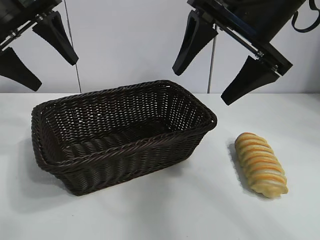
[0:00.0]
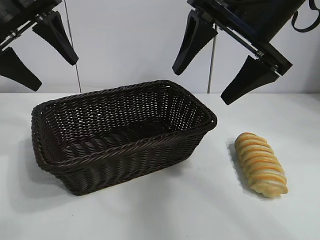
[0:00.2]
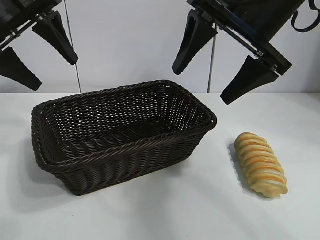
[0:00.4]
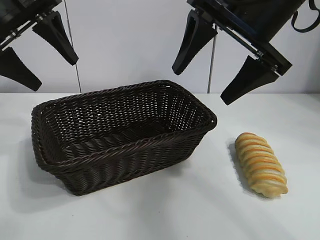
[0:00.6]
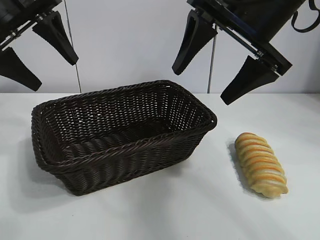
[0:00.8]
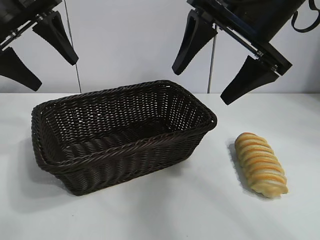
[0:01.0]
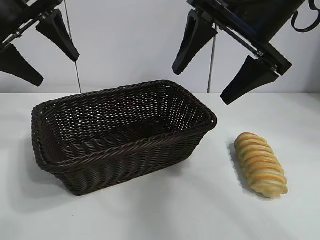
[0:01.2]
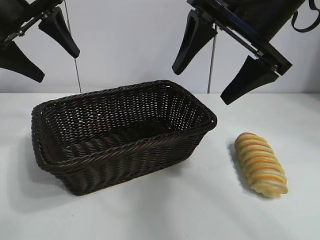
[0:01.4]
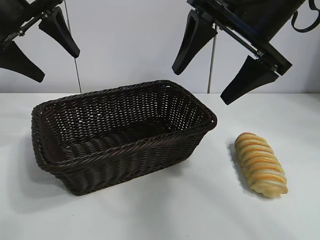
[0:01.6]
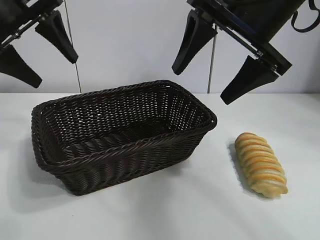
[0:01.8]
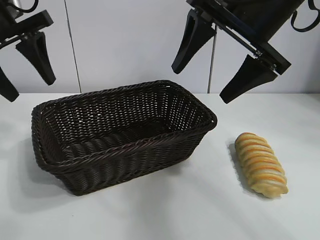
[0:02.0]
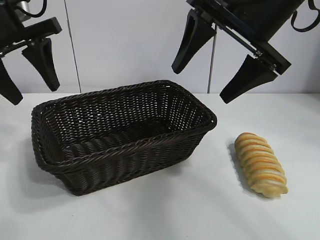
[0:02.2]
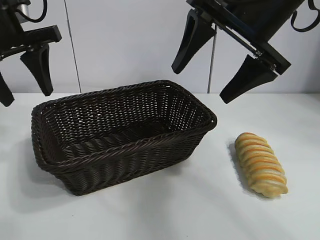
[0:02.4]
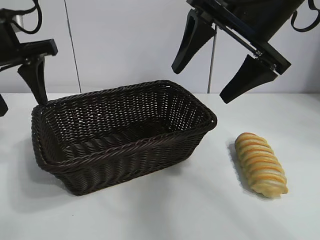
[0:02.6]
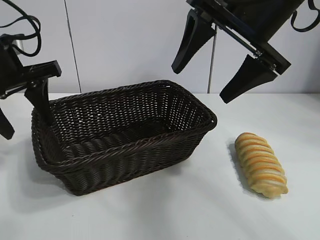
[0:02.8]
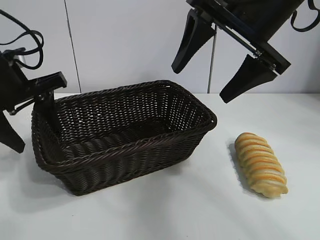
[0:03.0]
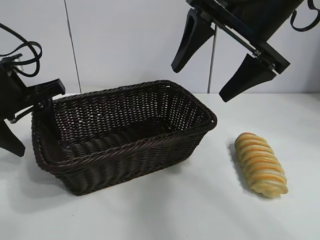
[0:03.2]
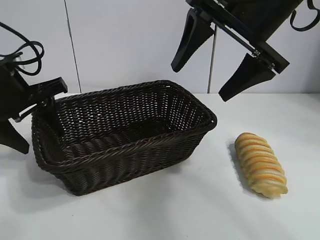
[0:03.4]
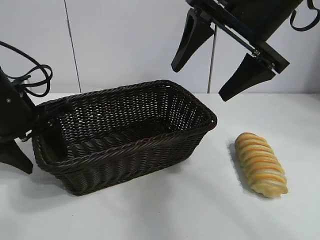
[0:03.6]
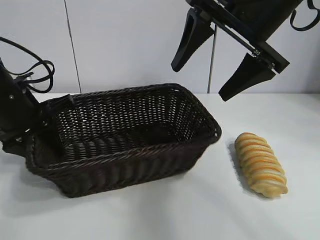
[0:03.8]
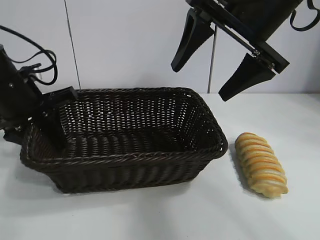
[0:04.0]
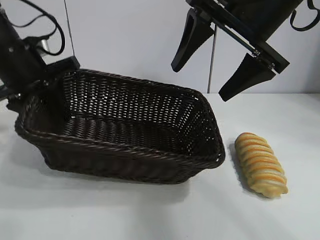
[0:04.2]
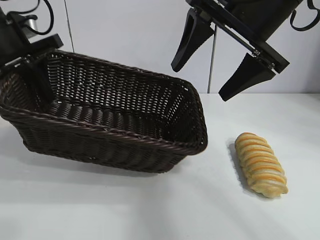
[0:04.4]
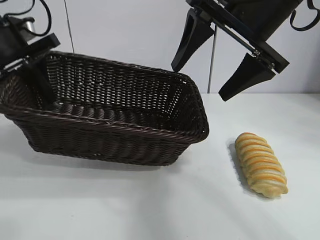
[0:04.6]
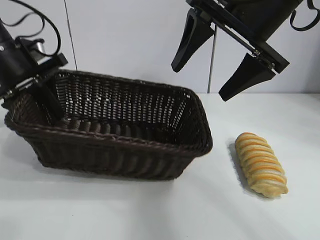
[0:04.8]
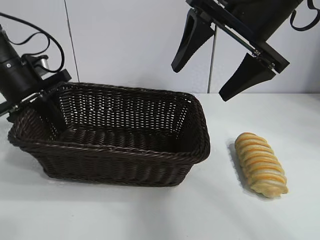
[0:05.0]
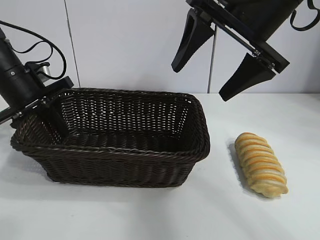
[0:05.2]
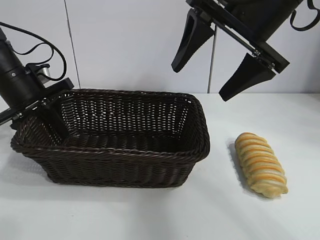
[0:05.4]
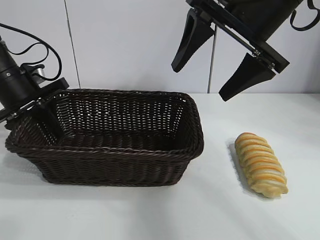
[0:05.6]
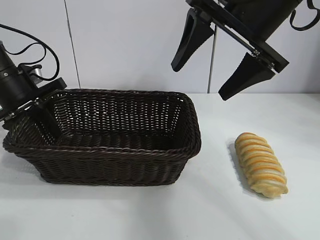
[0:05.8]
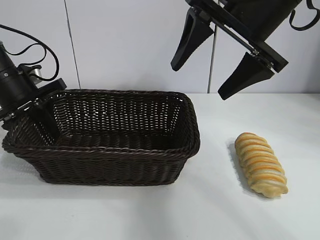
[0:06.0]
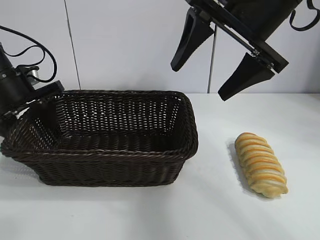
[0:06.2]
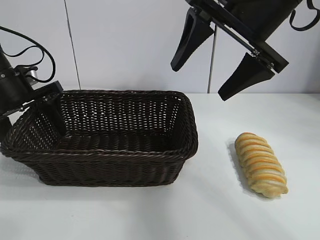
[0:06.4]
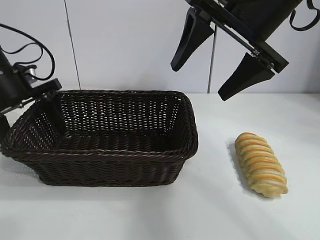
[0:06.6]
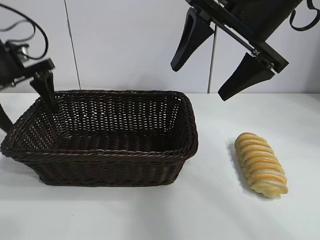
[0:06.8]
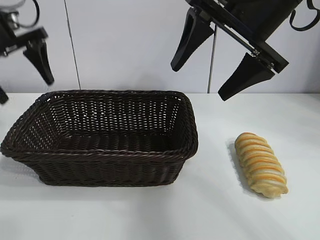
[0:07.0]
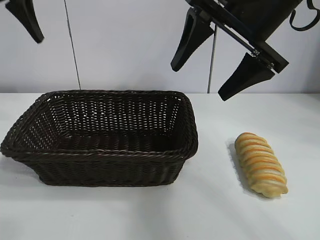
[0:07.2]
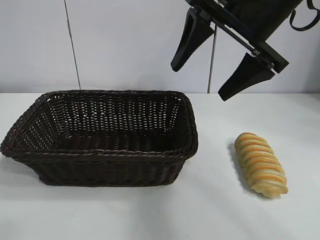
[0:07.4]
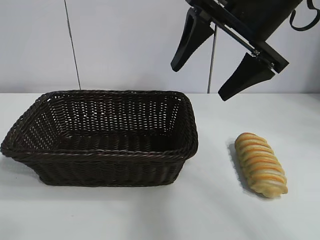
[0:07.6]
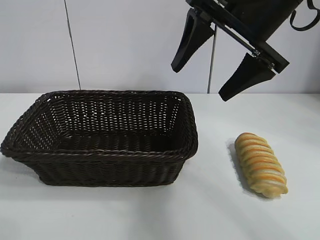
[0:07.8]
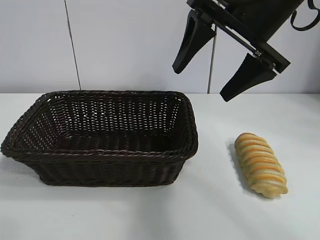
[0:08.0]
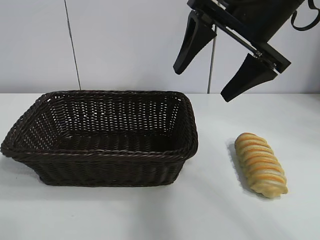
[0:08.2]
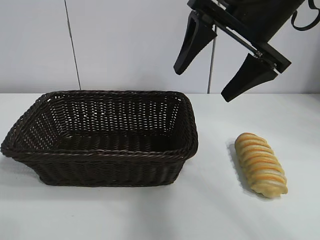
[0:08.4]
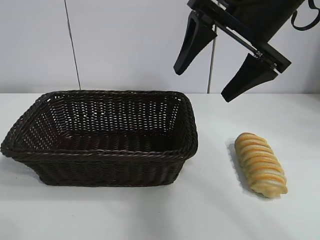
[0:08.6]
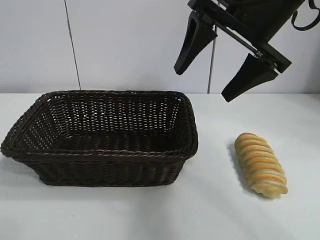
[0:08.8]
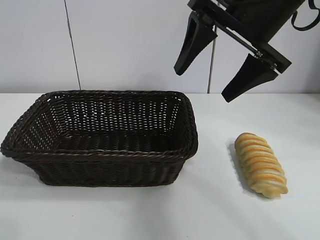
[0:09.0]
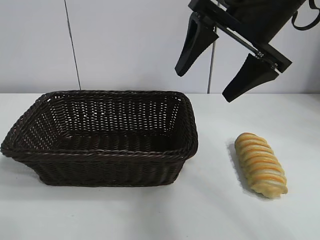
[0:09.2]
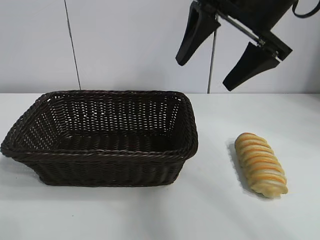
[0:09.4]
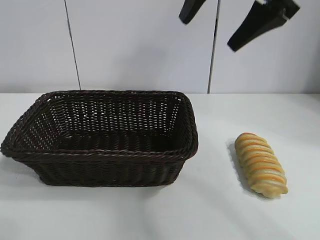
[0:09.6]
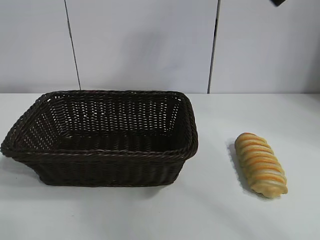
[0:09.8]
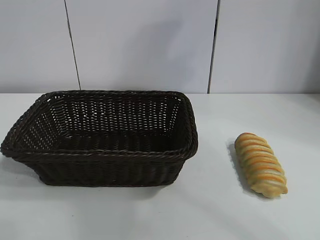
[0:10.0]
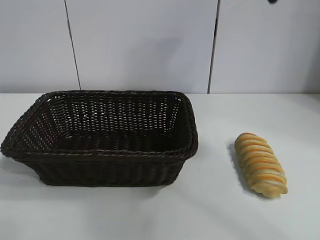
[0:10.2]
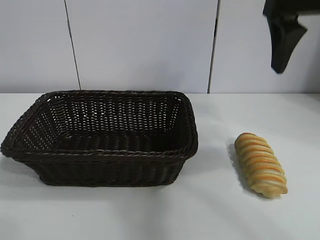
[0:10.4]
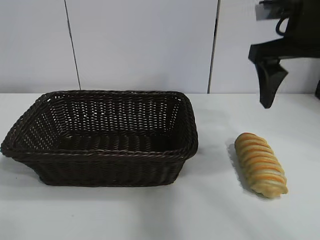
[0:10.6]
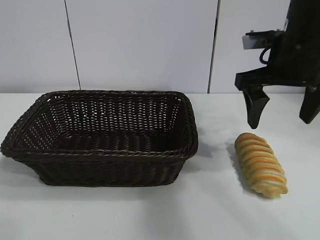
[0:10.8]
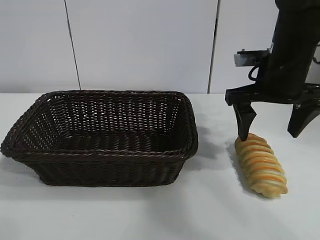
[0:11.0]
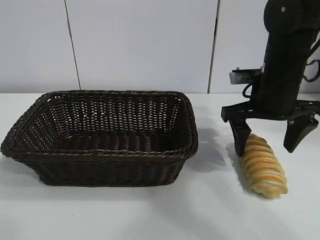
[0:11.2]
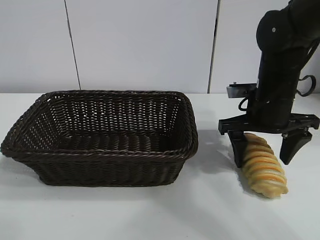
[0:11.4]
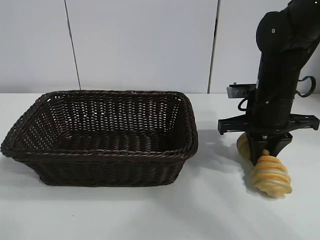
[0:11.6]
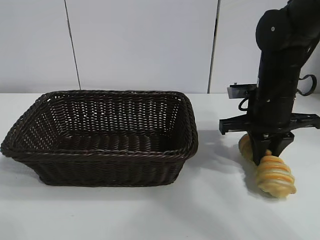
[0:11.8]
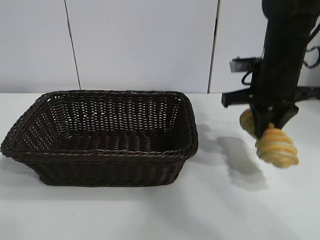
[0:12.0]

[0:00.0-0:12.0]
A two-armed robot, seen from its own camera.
Task of the whole recording: pick up the long bread and put it into the basket.
Step, 0:01.8 to 0:03.6: Grasp the basket with the left gripper.
Step, 0:04.0 to 0:05.4: Place the basket in the center of the table with the left gripper.
Step, 0:05.8 to 0:11.6: Grasp the long bread with right gripper.

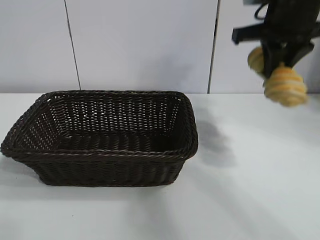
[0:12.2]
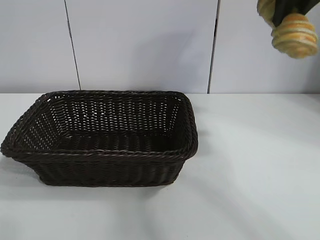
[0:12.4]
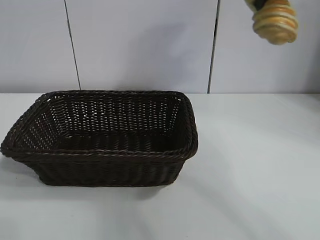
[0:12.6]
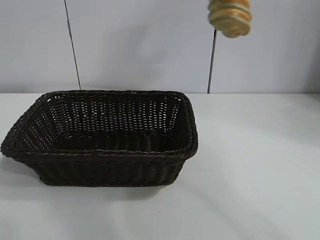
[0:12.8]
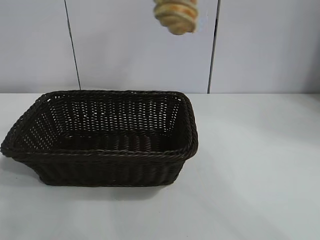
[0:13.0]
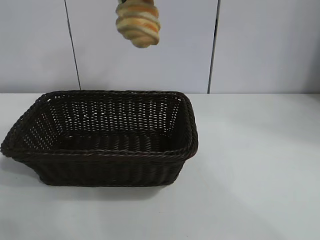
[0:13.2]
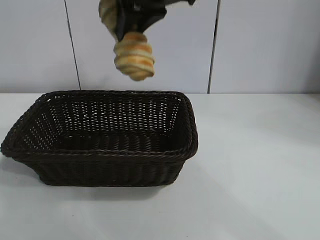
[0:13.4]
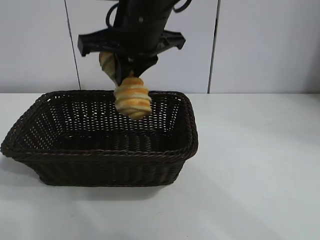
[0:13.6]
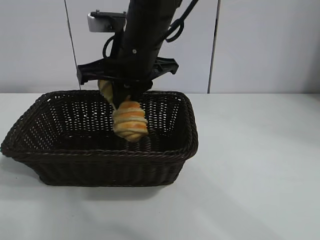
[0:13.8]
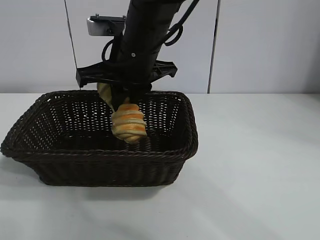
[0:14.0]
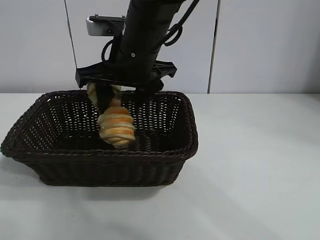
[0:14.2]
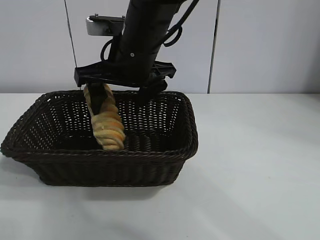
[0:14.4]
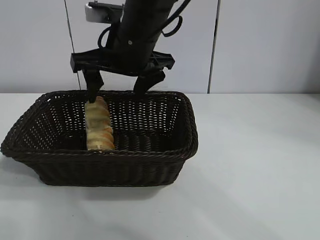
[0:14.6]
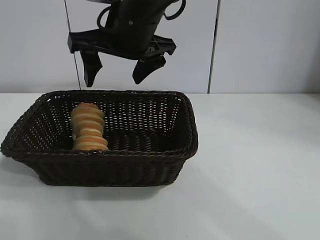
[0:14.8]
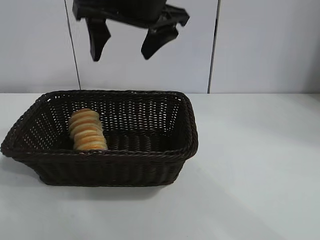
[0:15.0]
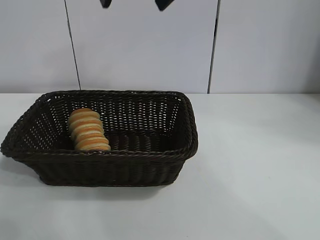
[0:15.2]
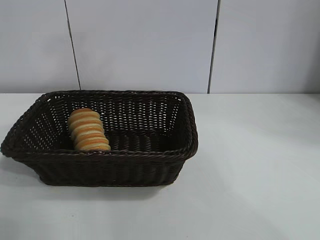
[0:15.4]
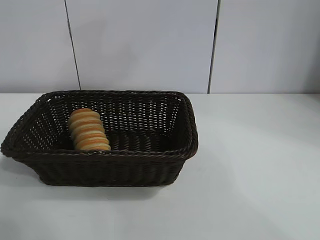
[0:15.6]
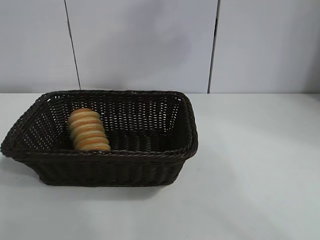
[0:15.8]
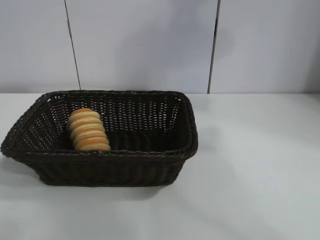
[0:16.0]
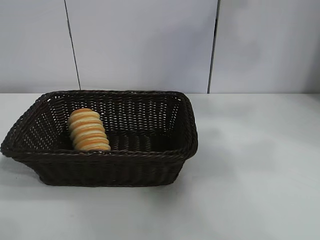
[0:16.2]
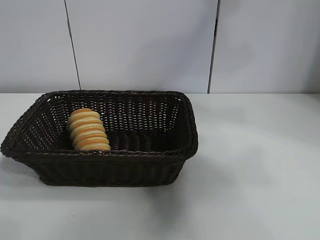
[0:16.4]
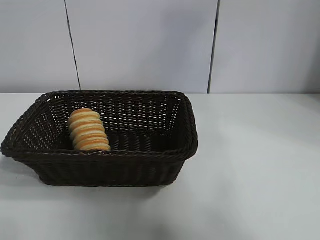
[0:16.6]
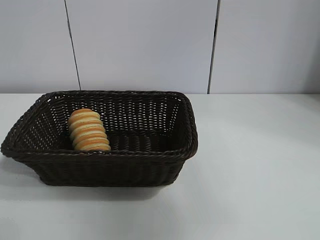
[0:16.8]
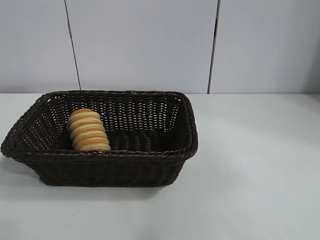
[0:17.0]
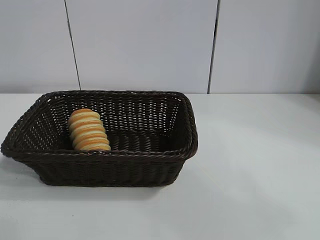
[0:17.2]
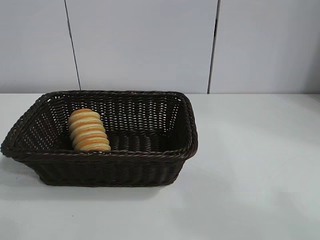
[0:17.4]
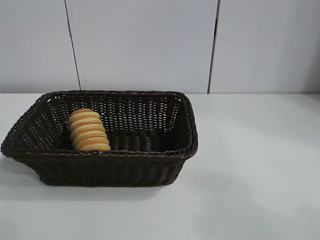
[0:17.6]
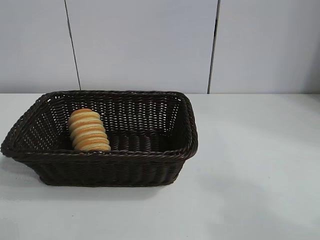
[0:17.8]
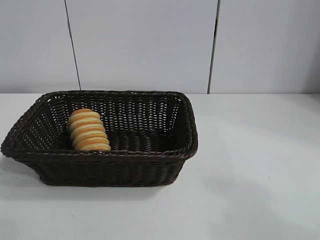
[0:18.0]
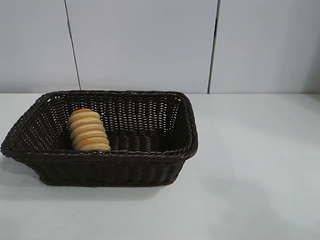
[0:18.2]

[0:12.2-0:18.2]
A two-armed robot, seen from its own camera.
Task of the whole recording: pick up the long bread and put it into the basket.
Step, 0:12.2 to 0:14.4: Place the long bread in the basket with right gripper.

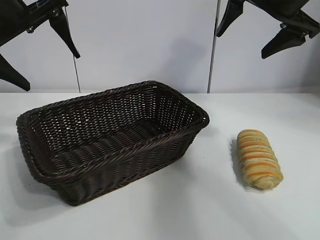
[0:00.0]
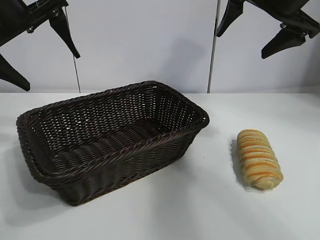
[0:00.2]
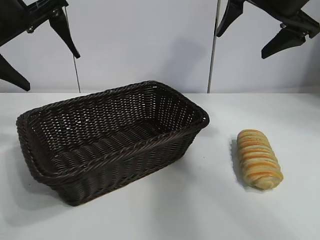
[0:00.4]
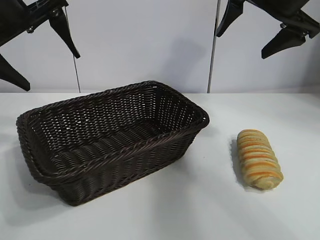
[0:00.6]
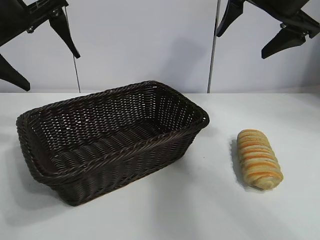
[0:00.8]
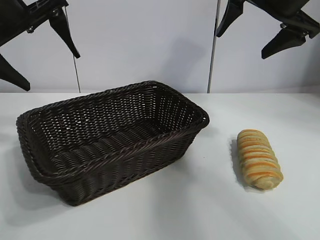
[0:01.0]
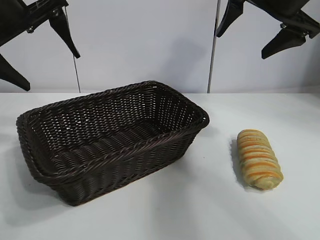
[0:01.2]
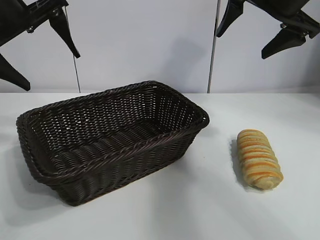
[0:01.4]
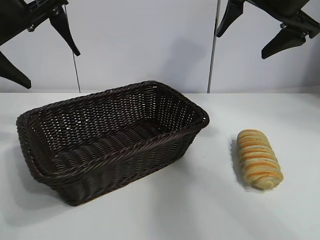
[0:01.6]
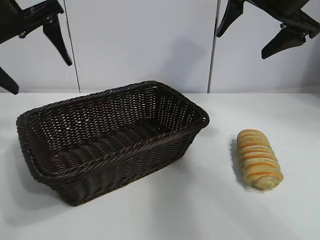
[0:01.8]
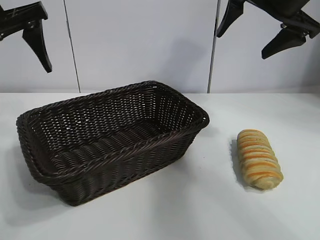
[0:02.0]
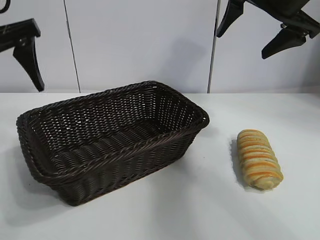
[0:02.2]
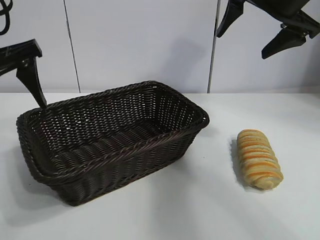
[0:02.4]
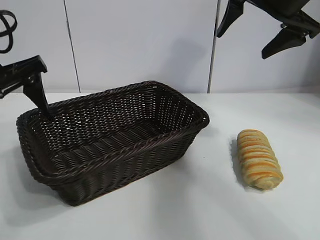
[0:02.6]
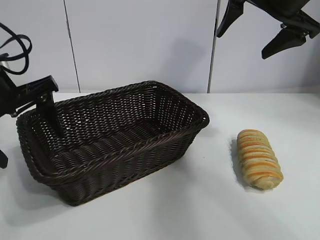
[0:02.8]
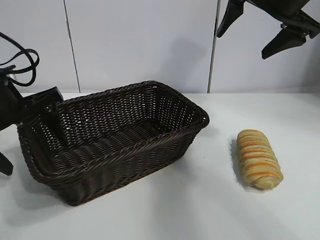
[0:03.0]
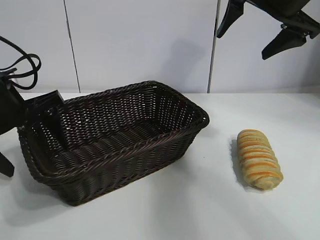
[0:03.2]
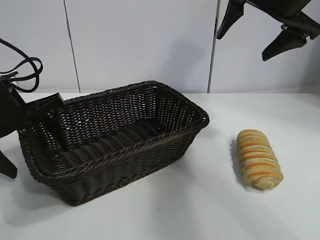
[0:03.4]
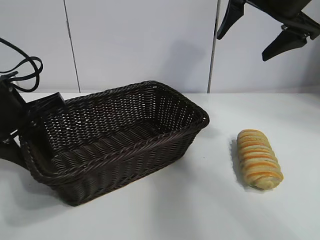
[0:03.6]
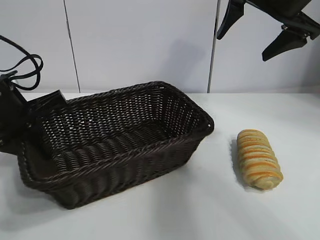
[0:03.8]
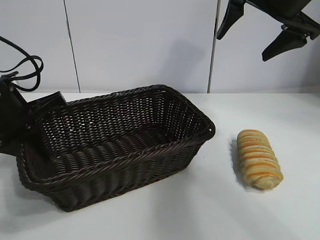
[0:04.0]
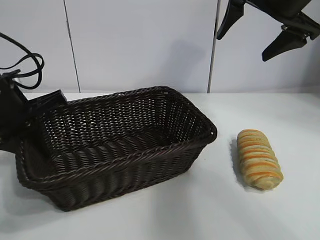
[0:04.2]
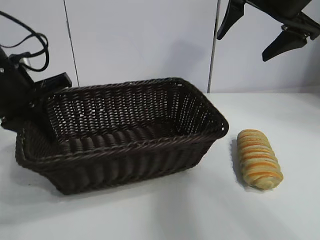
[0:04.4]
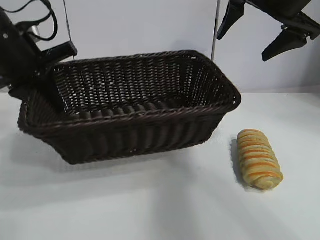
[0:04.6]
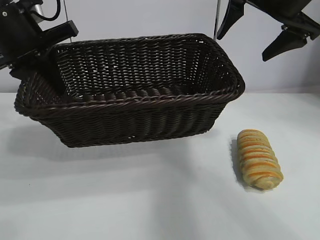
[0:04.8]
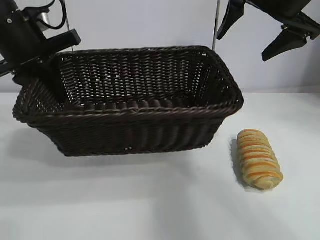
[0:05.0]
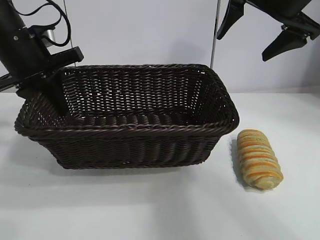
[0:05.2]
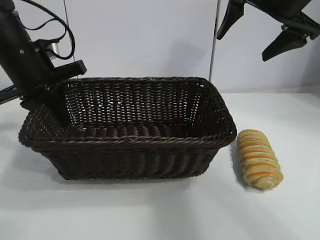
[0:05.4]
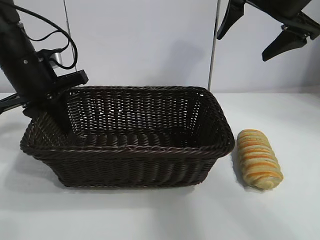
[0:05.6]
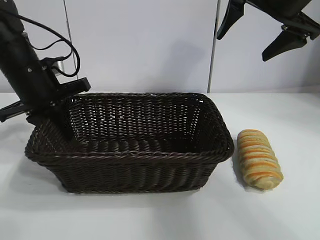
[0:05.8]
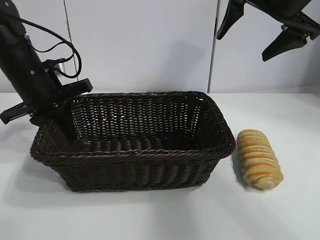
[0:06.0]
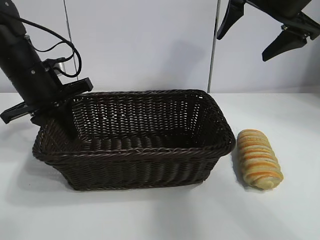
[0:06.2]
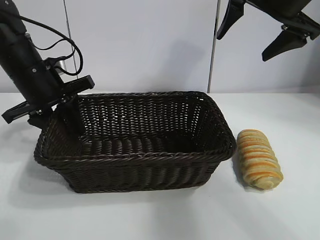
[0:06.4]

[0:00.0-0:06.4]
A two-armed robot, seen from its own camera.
Task of the whole recording: pick up the long bread and put it into the basket.
Step, 0:01.6 to 0:03.6: Grasp the basket with the left gripper.
